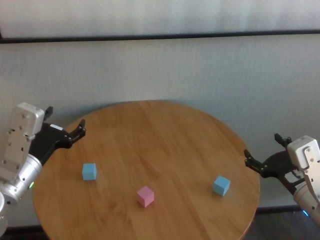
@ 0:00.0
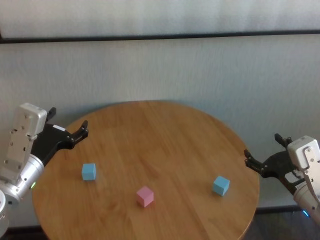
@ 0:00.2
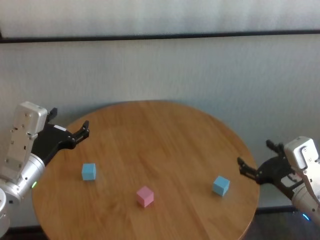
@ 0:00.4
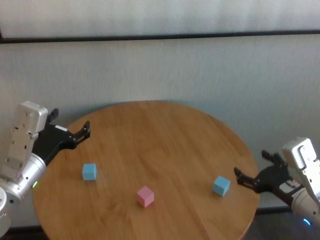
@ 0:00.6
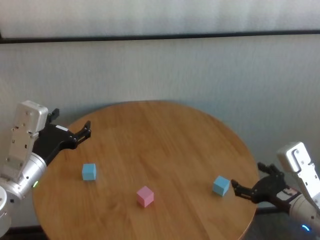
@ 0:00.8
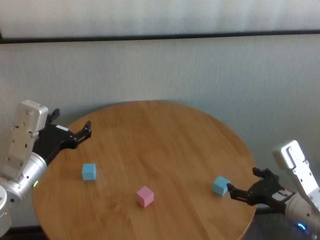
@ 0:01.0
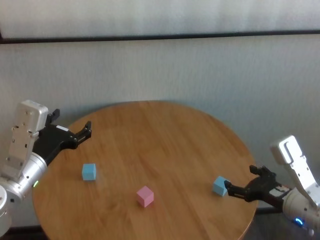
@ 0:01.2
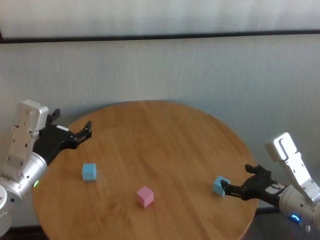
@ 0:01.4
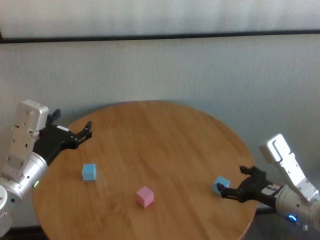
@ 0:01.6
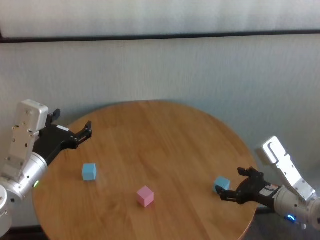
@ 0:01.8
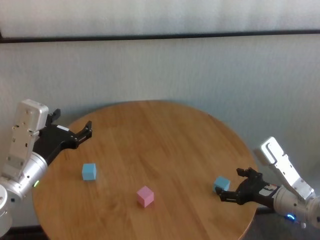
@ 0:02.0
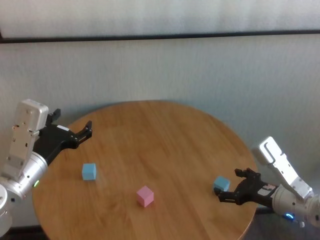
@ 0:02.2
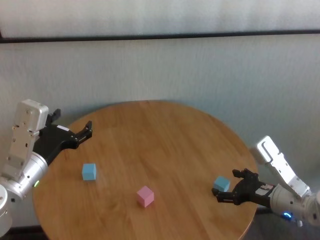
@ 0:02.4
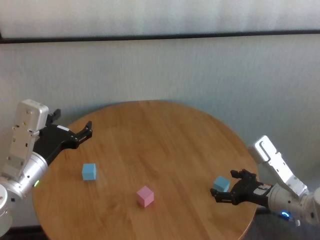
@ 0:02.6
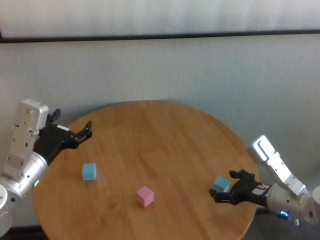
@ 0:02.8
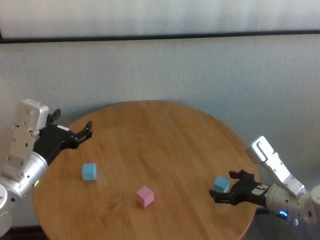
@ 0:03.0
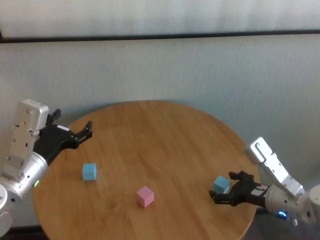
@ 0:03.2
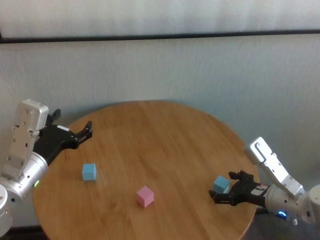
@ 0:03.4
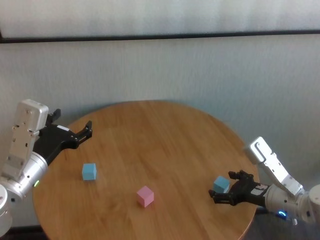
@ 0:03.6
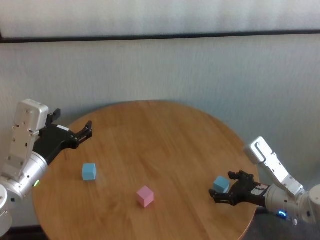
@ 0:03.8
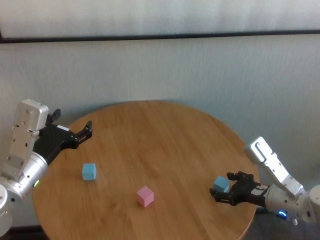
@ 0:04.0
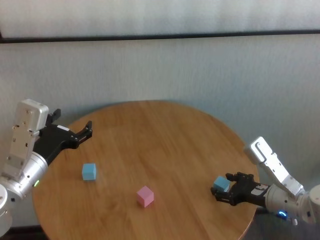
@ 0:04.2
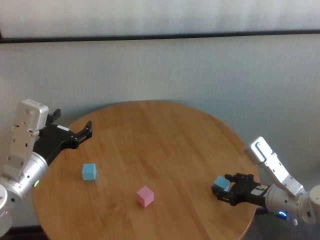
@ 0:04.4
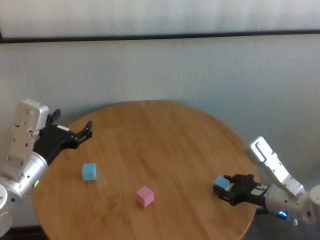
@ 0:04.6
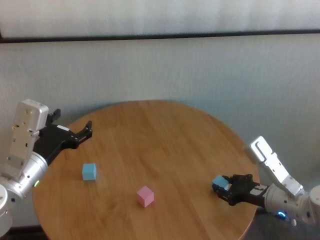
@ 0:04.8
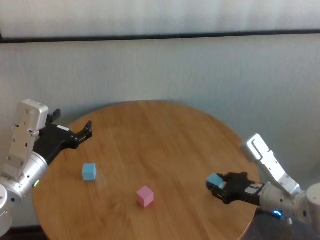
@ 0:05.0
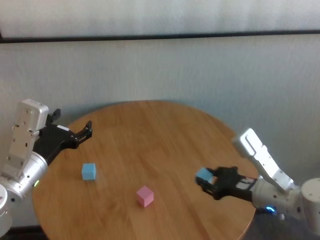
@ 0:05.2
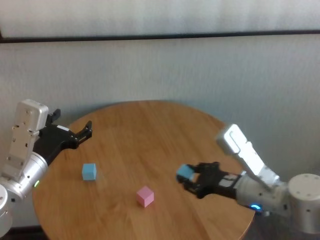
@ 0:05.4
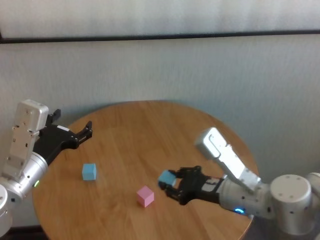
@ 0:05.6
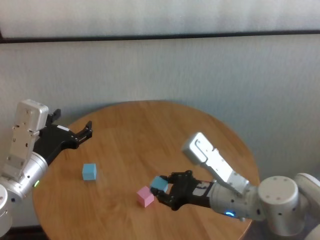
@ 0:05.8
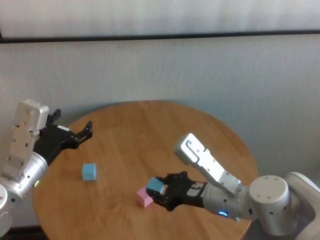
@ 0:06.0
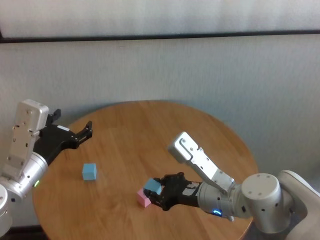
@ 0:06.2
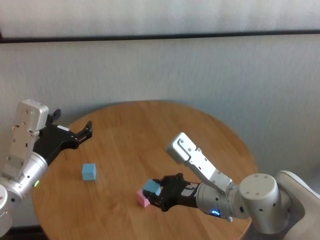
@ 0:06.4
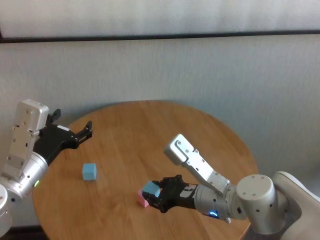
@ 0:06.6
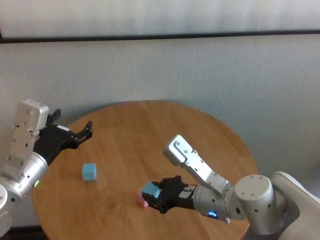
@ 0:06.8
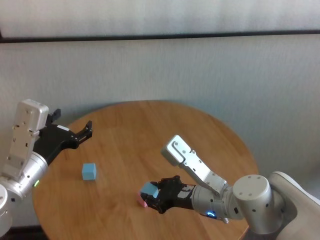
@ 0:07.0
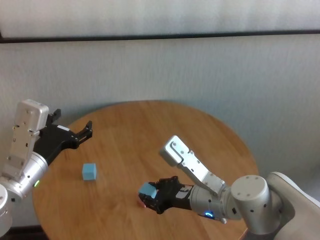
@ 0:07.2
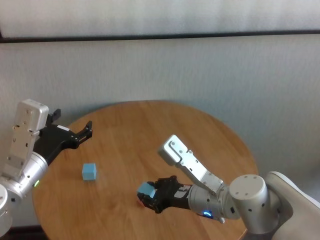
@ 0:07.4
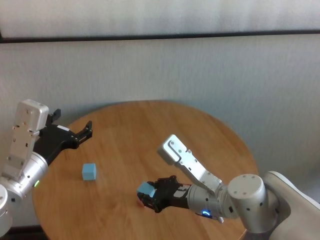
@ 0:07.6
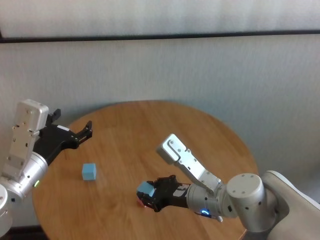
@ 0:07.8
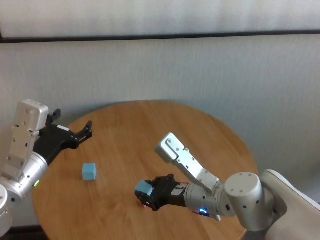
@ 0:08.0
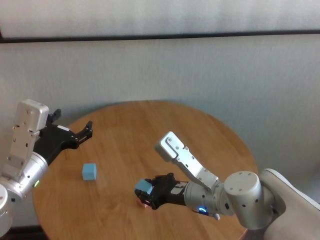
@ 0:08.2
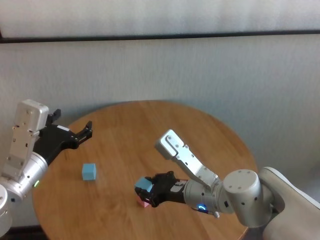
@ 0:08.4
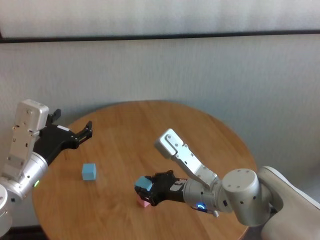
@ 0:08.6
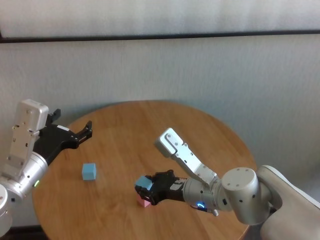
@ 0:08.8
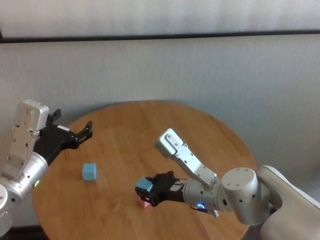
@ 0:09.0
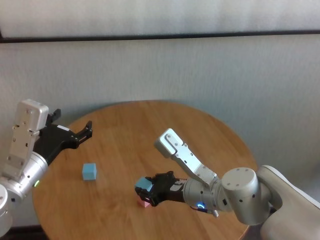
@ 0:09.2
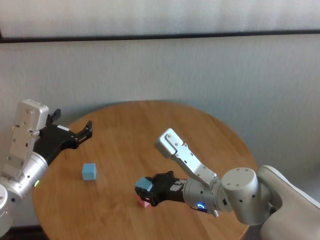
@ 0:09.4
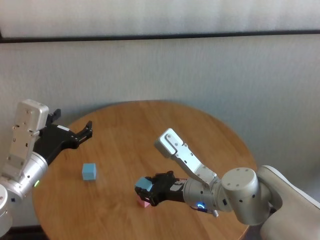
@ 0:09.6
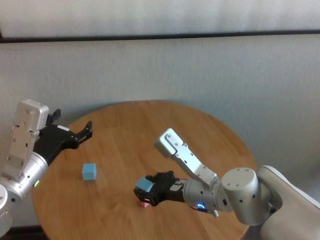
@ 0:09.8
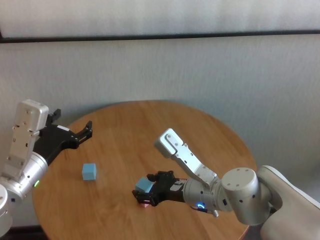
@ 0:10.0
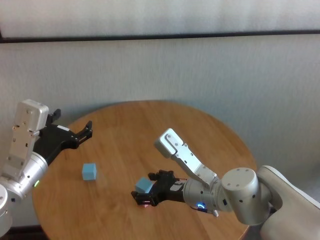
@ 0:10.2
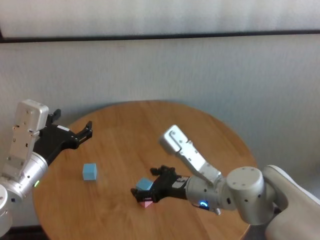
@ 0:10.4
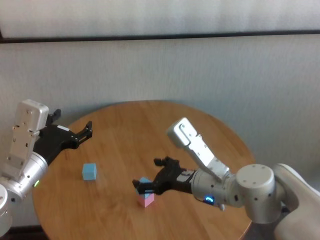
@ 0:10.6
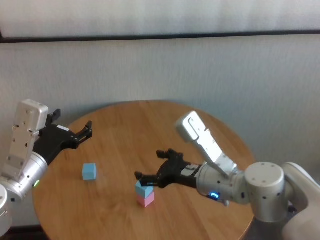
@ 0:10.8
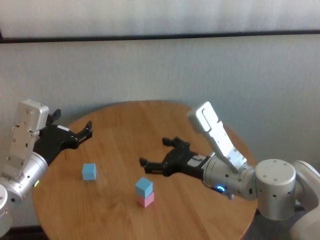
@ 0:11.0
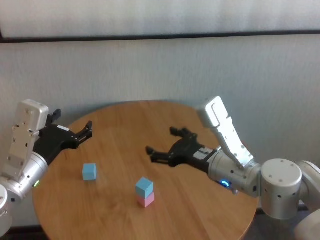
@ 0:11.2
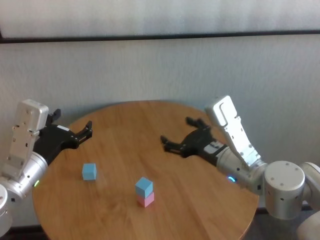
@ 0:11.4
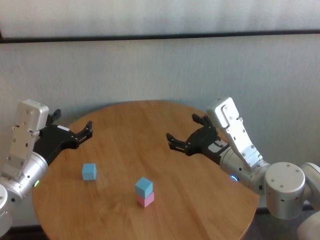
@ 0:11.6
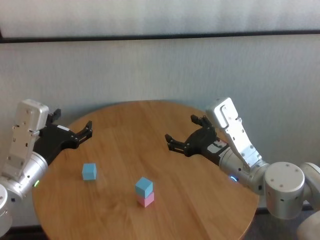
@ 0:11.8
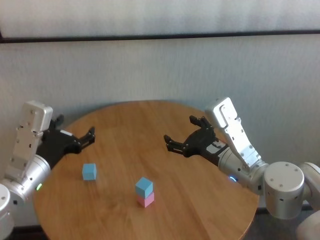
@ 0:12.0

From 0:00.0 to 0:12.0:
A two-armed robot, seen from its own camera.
Task of the whole recording: stack building blocks on the table.
Step, from 0:00.0 to 0:04.6: Grasp the blue building block with right gripper.
Step, from 0:05.0 to 0:10.2: Place the blue building block on the pink building blocks with right gripper.

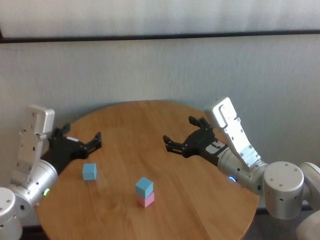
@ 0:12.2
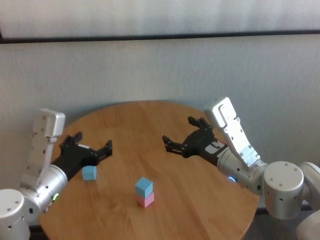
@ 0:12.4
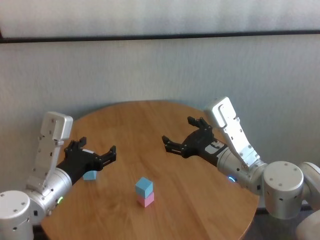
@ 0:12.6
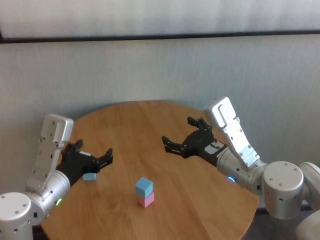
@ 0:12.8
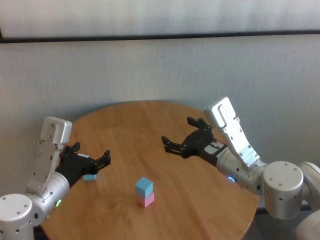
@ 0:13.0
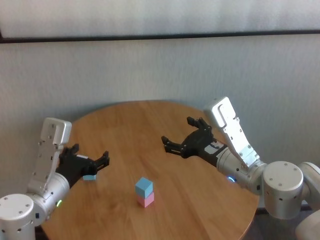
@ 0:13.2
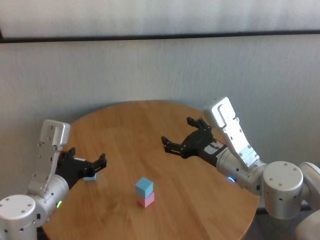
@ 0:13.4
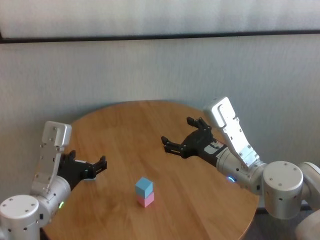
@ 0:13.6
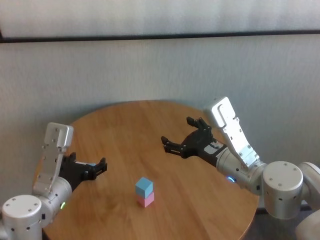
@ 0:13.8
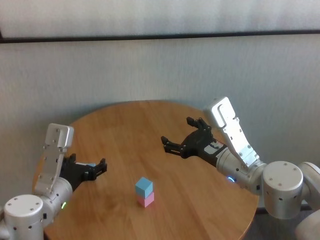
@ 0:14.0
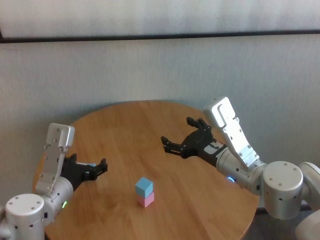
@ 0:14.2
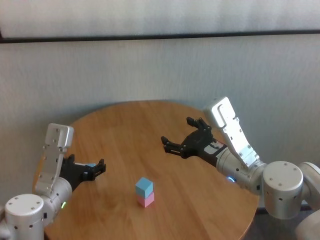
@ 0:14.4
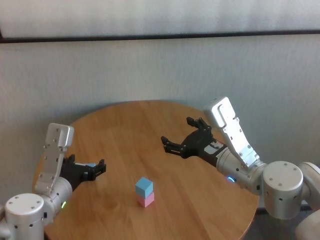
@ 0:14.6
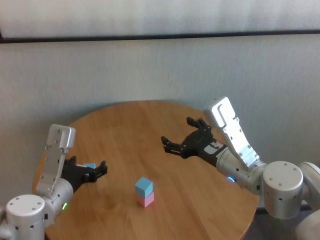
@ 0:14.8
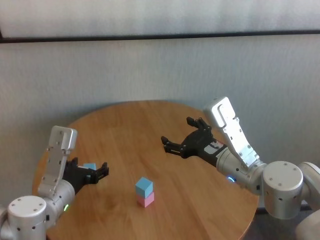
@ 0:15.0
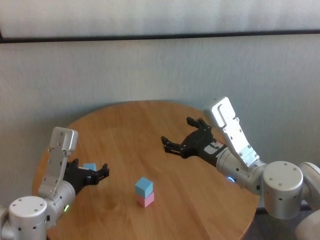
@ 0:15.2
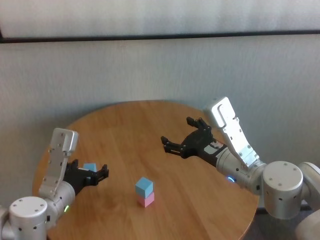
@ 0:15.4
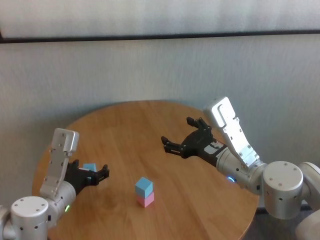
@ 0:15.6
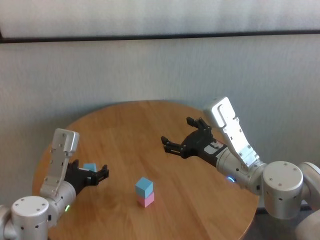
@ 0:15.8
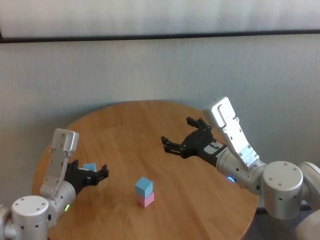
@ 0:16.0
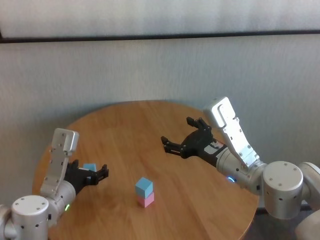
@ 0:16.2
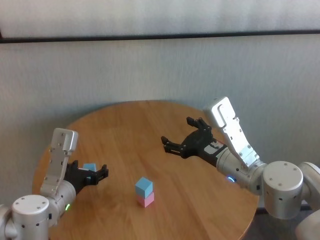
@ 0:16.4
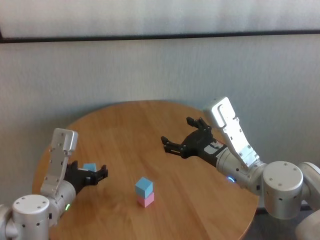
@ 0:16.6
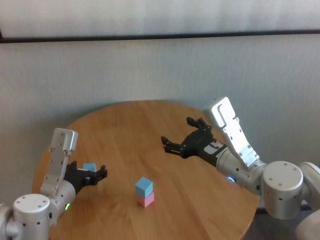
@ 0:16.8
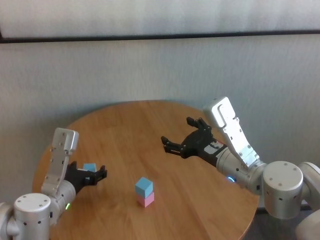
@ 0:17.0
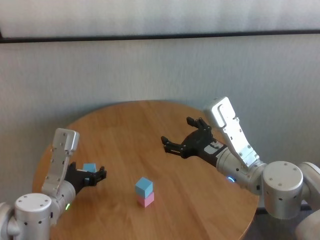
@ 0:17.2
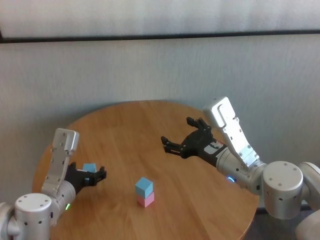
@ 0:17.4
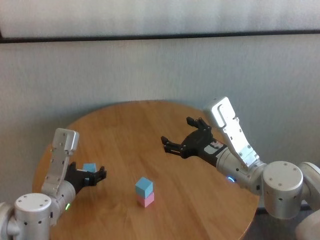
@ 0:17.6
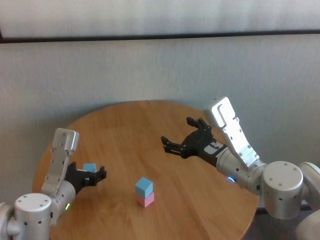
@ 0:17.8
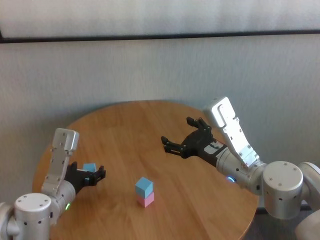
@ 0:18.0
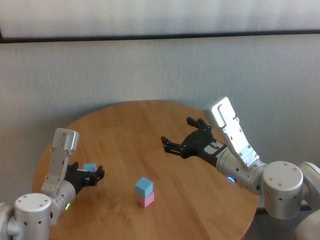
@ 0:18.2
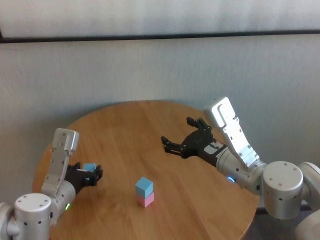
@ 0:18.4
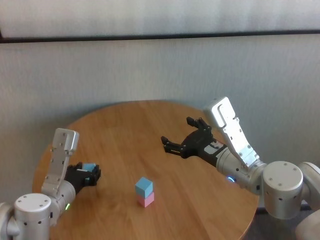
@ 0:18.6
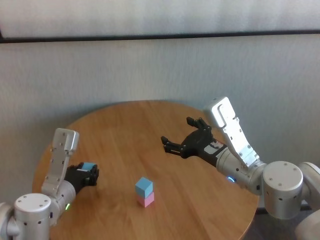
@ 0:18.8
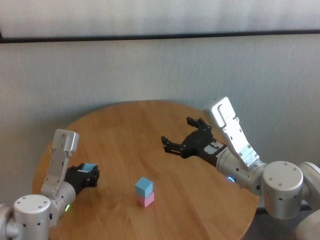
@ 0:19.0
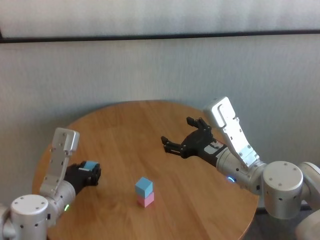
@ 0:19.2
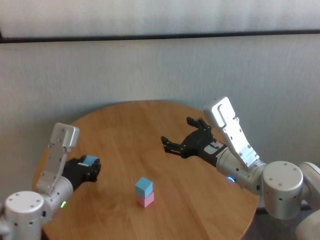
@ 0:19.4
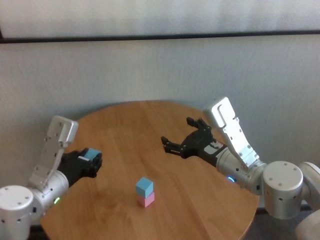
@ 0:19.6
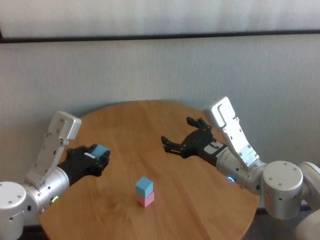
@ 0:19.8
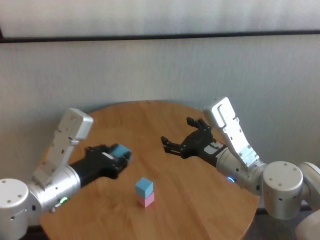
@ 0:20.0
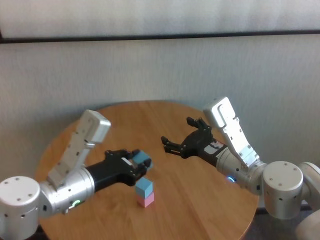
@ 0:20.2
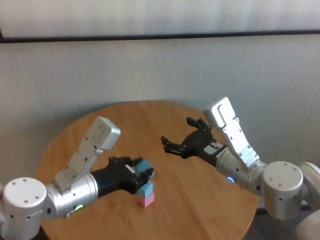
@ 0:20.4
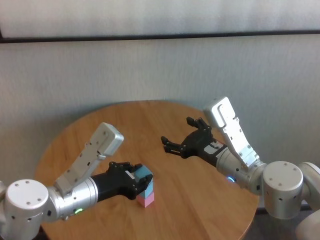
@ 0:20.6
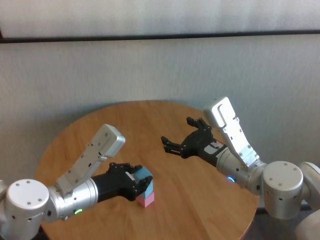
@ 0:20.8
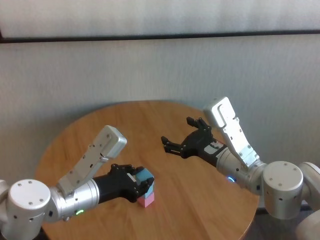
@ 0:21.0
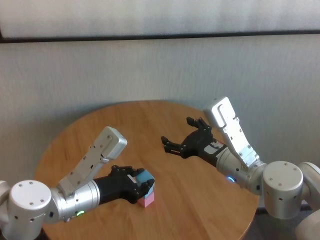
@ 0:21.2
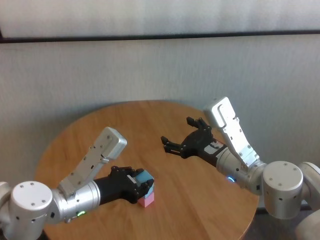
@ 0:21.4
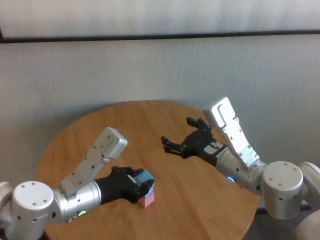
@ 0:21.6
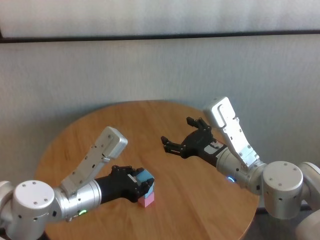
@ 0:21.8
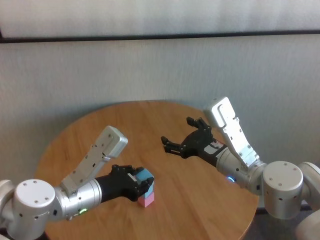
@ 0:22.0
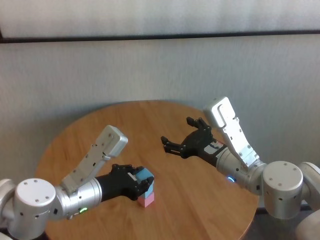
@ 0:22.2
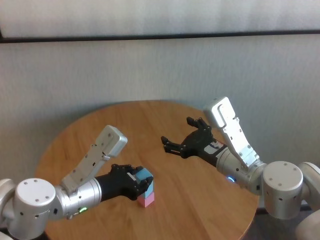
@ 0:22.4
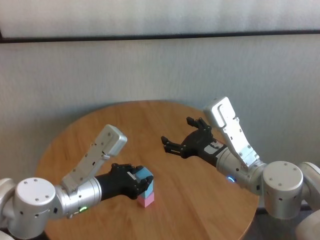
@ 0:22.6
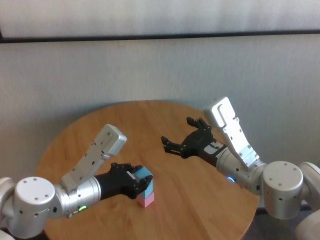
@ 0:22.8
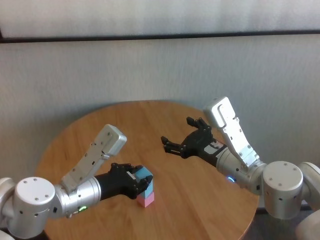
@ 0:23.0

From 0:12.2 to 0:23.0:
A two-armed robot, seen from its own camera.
Task of the whole recording: stack building blocks on the table.
Step, from 0:12.2 to 0:18.8: Grasp the blue building block with left gripper.
